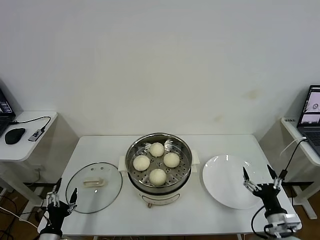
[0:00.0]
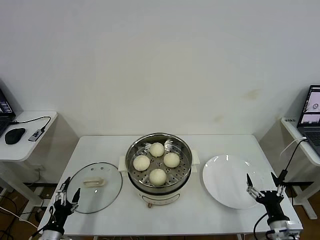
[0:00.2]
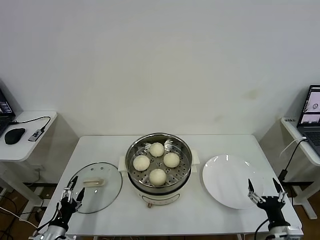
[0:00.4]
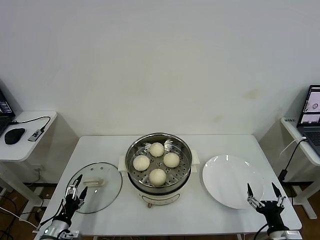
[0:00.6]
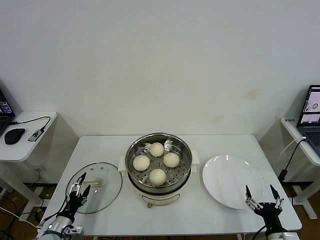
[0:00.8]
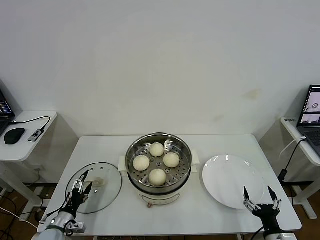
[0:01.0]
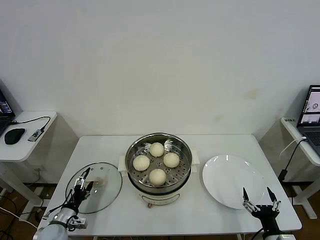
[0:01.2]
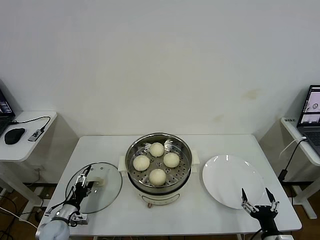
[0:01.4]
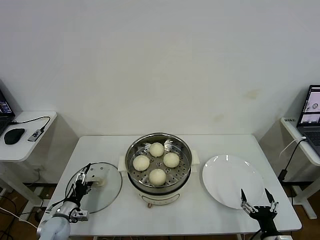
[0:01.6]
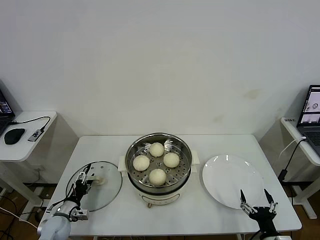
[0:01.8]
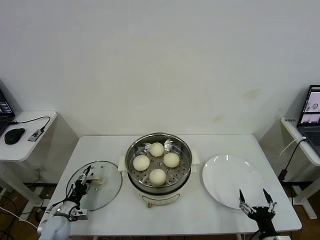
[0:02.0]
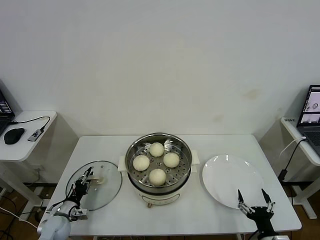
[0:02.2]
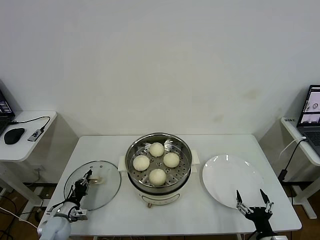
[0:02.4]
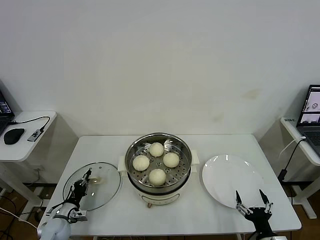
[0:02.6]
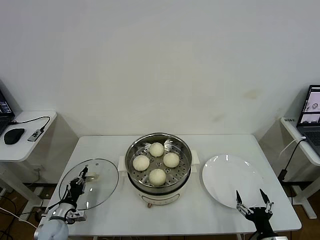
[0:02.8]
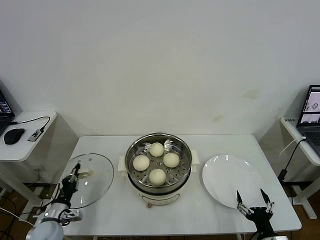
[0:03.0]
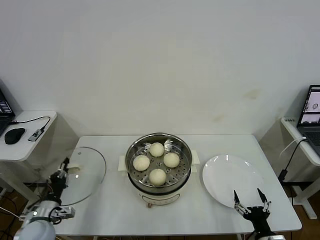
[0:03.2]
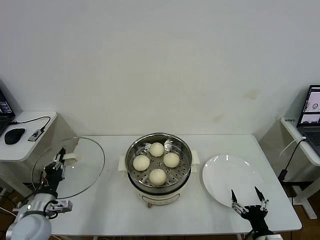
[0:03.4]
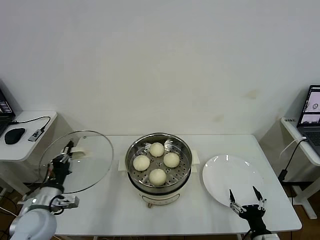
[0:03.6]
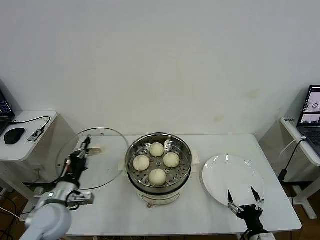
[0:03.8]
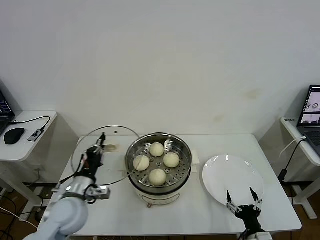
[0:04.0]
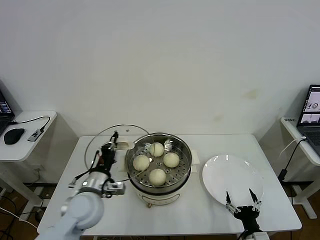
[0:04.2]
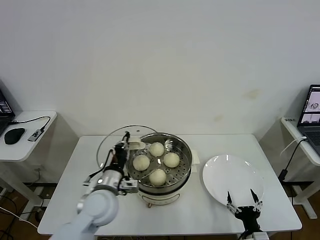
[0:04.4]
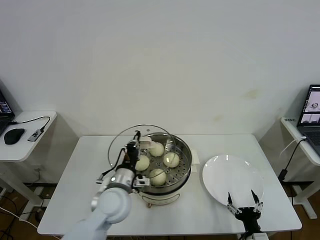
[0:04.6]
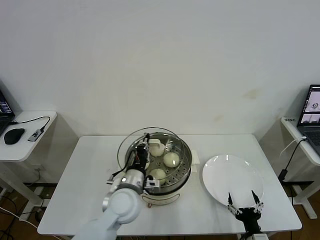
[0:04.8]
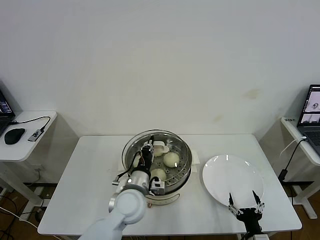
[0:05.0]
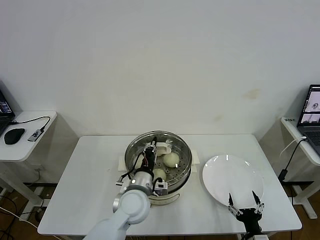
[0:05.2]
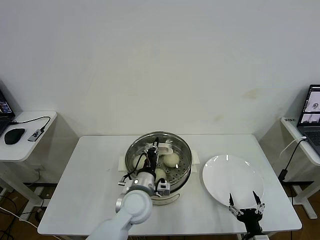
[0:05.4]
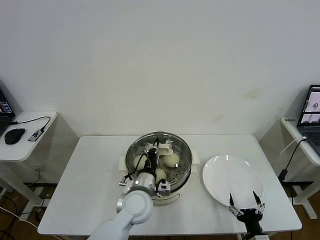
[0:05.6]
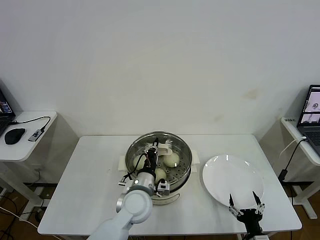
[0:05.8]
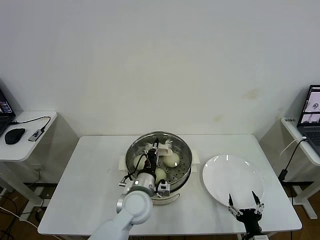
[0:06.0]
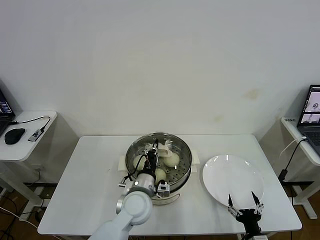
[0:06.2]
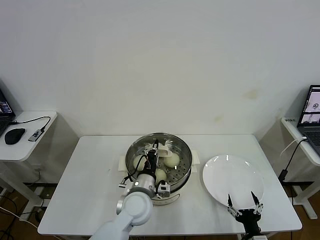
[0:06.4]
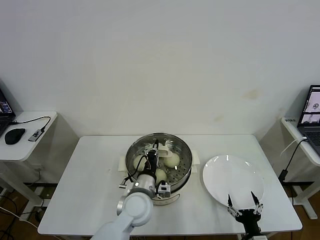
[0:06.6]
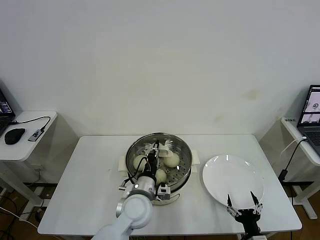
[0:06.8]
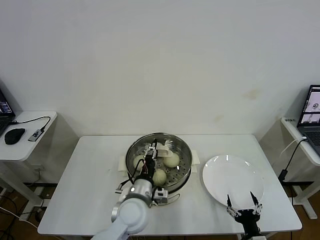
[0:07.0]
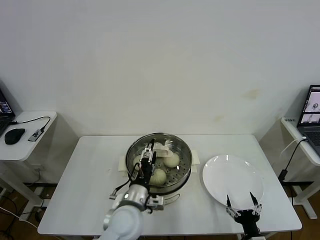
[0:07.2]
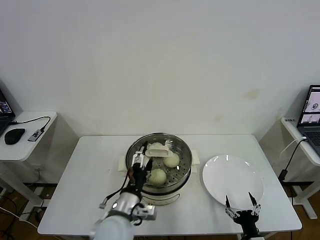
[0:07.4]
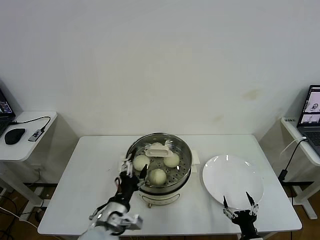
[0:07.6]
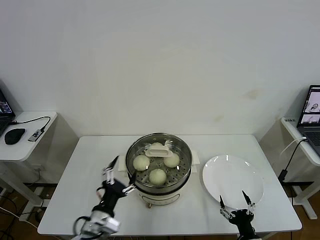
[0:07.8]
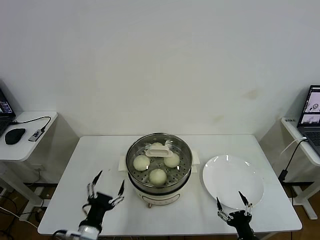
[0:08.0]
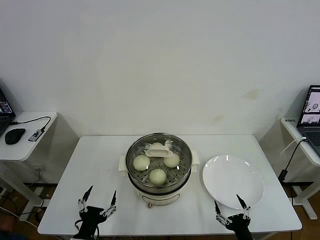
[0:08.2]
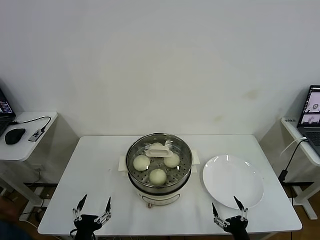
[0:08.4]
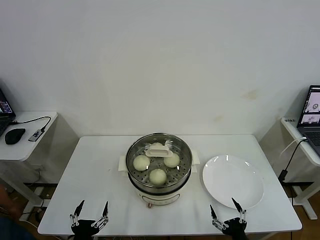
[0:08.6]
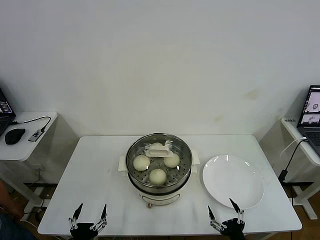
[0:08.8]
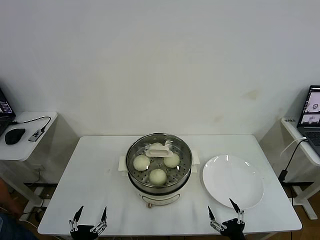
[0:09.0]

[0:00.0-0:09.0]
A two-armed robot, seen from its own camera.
Task of the whole recording: take steamed baozi put them in steamer then cover it.
Step, 0:00.0 to 0:02.8: Grasp the pot lid with left gripper.
Step, 0:03.0 to 0:07.4: Place the pot lid on the steamer with left gripper.
0:00.0 to 0:01.6: The left gripper shifts some 15 cm forward and downward. Meanwhile the right gripper travels backward by about 5 cm.
0:01.6 to 0:03.0: The left gripper closes.
0:03.0 to 0:04.4: The left gripper shifts about 25 cm to the right and upward.
0:04.4 to 0:06.0: The left gripper shifts some 10 cm to the right.
0:06.0 to 0:07.6: The left gripper travels backward and to the left by approximately 10 cm, and opens up.
0:07.6 to 0:09.0: The left gripper is displaced to the left, backward and downward by roughly 20 cm.
